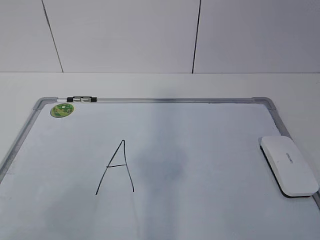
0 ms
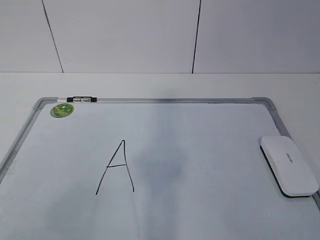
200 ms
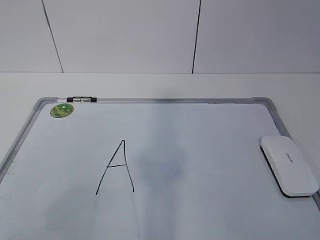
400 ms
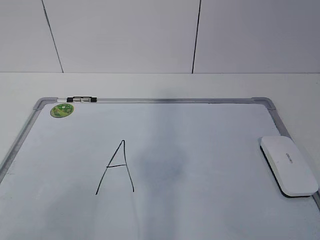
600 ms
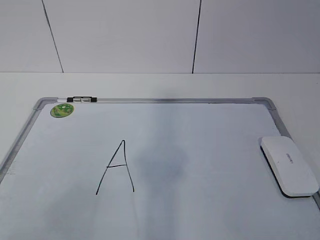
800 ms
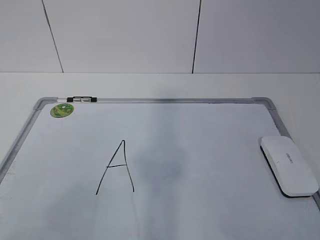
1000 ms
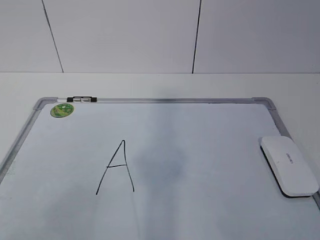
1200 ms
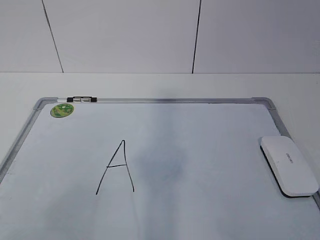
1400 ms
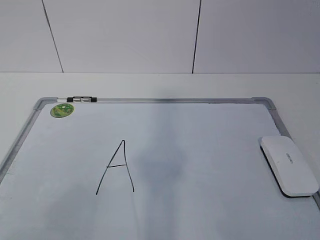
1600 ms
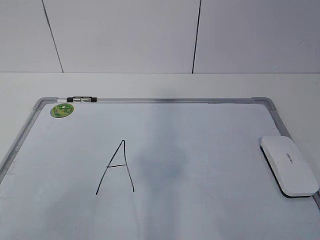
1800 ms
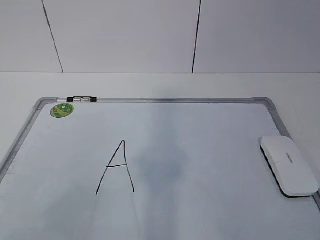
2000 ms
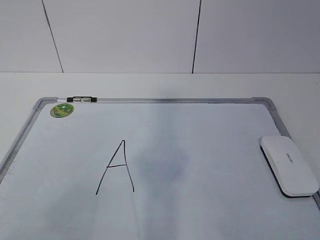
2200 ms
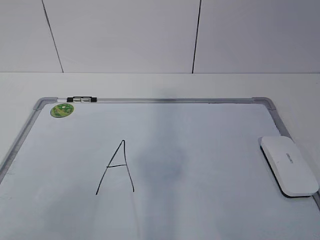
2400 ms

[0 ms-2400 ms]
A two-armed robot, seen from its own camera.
Task of the whole recording: pick up the eraser on the blackboard and erase the letter "a".
1200 ms to 2400 ms: The two grippers keep their place.

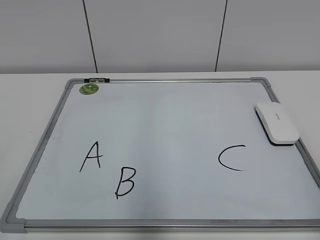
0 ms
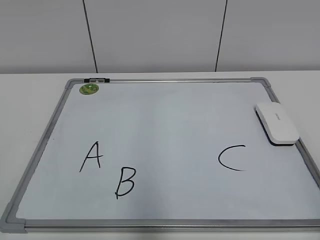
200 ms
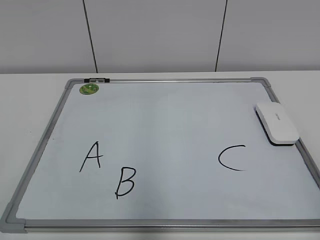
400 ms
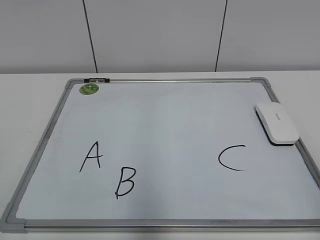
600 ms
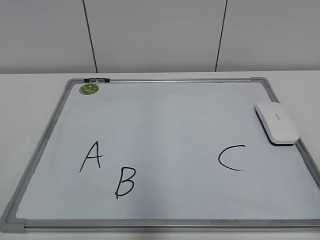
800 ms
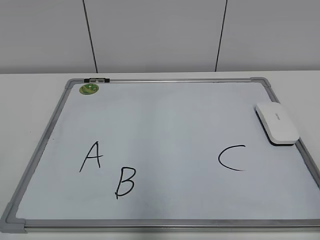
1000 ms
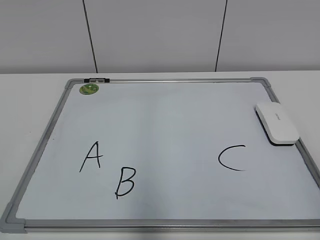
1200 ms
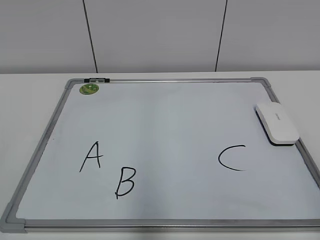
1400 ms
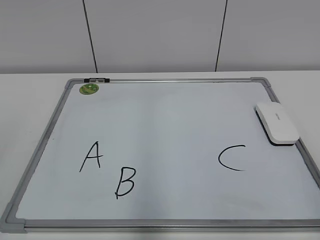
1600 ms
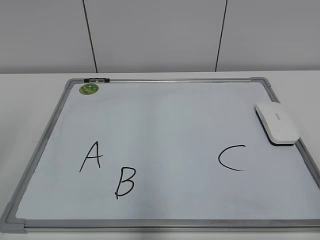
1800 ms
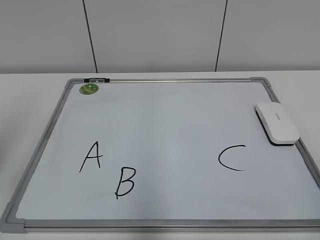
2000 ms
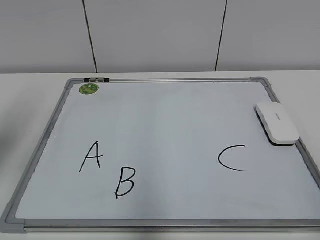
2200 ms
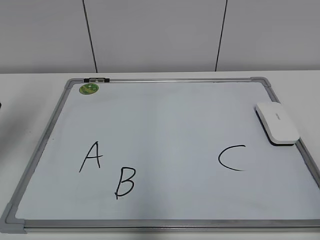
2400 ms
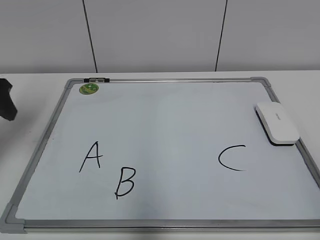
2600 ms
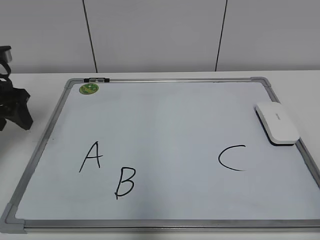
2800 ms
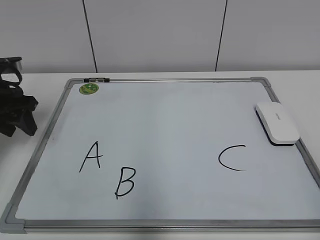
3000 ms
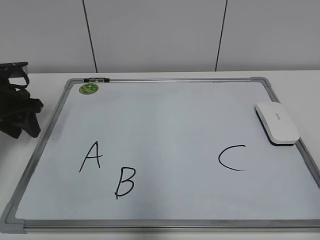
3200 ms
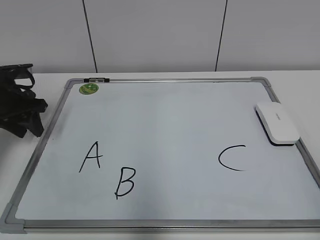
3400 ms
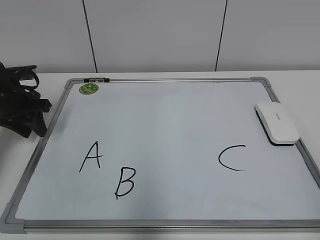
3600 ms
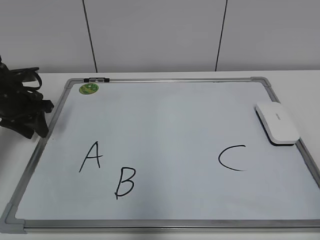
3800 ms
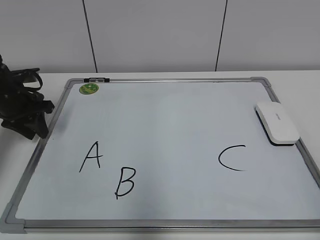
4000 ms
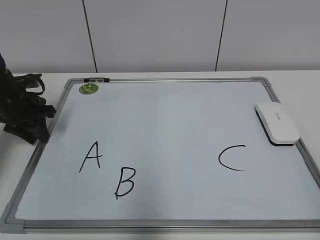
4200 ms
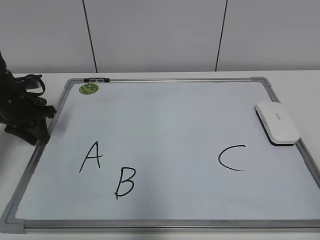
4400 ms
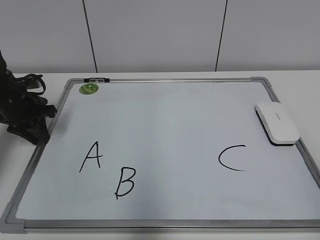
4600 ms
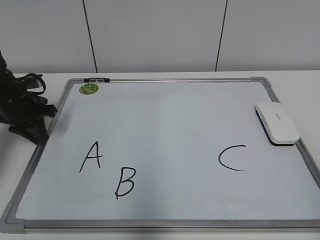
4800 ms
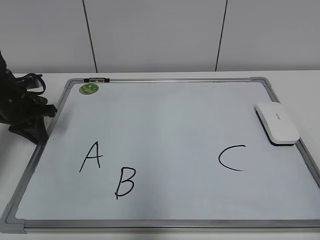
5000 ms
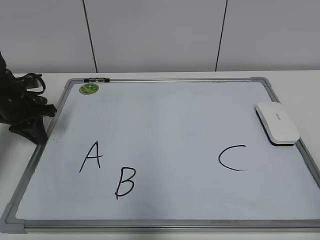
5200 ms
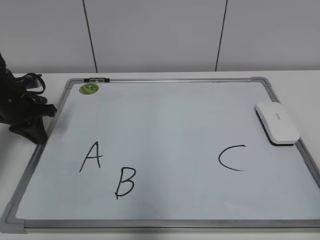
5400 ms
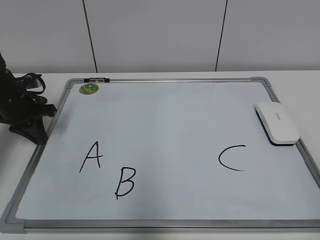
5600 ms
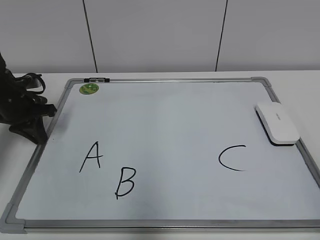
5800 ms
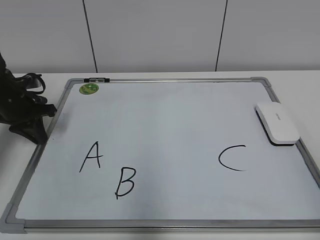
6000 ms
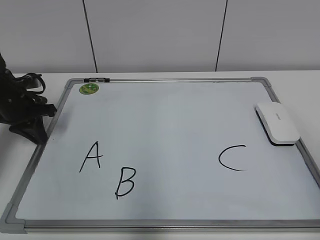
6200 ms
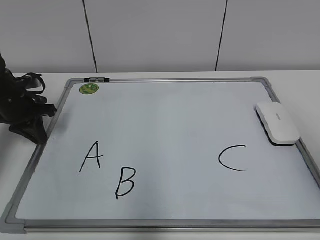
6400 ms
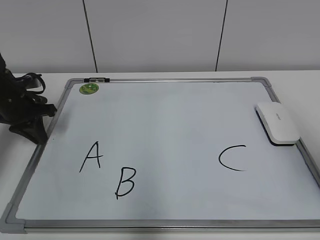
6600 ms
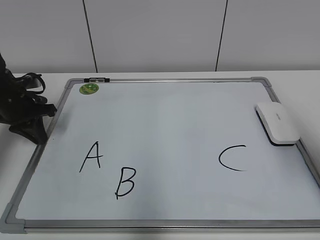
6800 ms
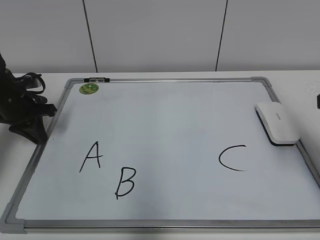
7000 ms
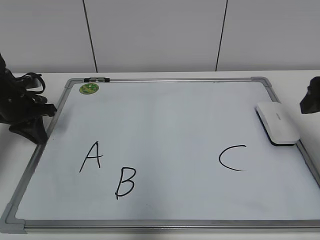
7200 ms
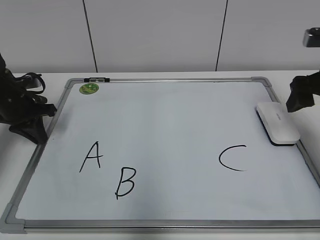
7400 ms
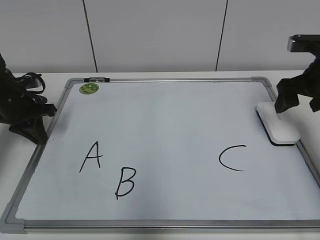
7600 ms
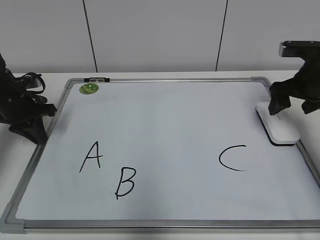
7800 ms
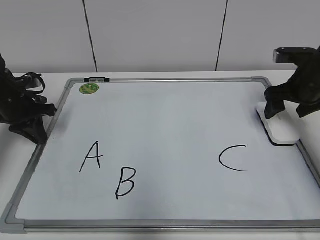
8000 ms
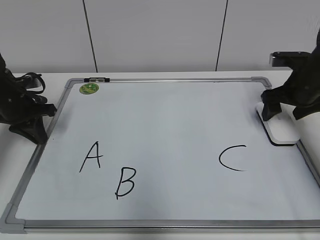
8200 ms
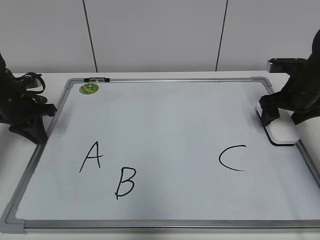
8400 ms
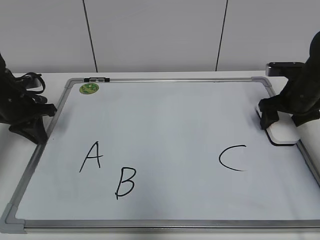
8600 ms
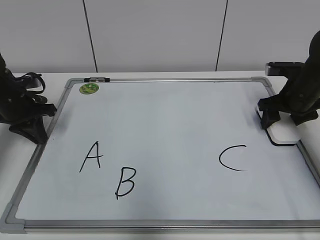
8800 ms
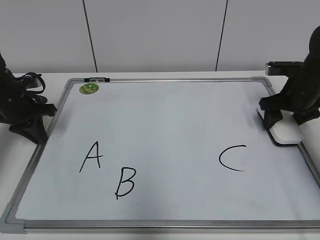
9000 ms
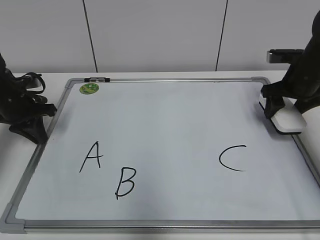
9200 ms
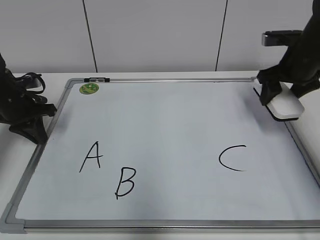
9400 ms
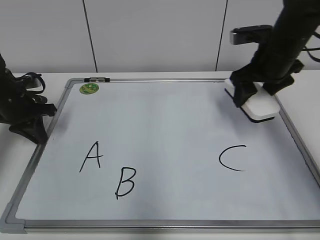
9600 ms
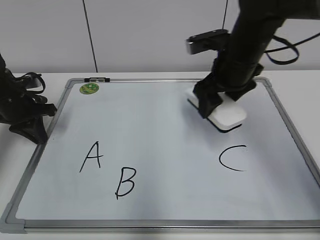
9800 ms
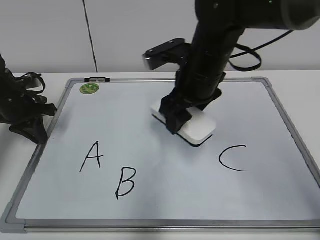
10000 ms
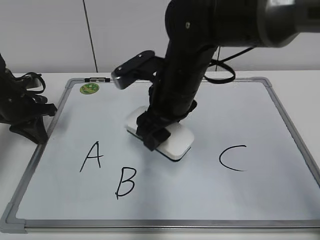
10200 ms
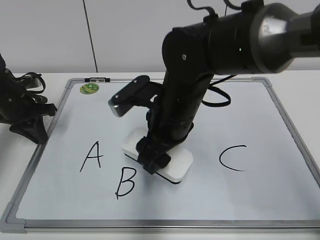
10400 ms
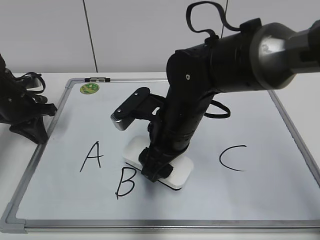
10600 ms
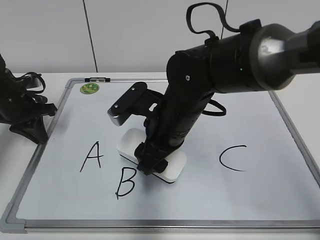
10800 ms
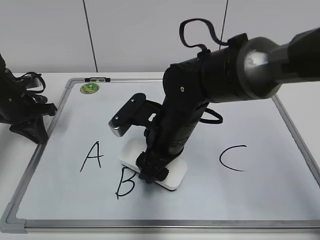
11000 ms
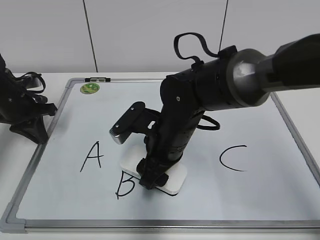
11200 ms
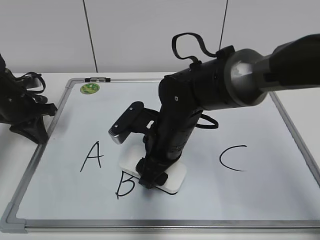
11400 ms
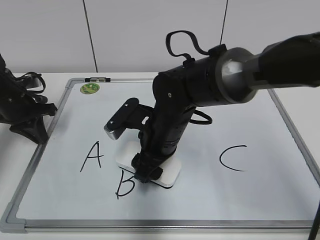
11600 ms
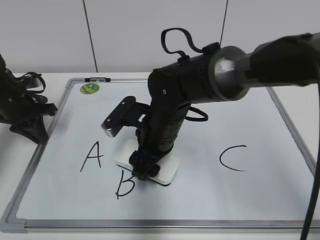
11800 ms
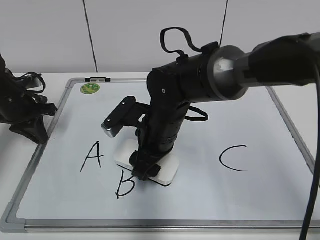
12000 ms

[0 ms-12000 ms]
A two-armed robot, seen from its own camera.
Task of the whole recording: pick up the eraser on the blackboard and erase the letter "B".
Step, 0 ms to 5200 ms: Hold the drawing board steady with your left hand.
Step, 5400 ms to 8800 ms: Grab the eraser with your right hand.
1600 ms to 3000 ms: The left gripper goes approximately 35 cm forward and downward.
3000 ms to 4400 ms: The left gripper moves downward, approximately 5 cm.
6000 ms to 7600 ms: The right gripper shifts about 35 cm forward, and opens its fingers.
7600 ms to 9000 ms: The right gripper heads downward and forward, covering about 10 cm, and closes its fingers.
9000 ms to 10400 ms: The right gripper moves to the left and backward, about 30 cm.
10400 ms to 12000 ms: The right gripper heads downward, covering some 5 cm.

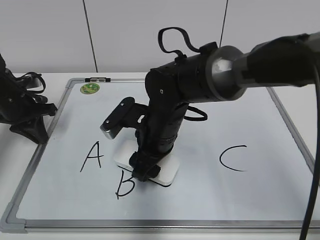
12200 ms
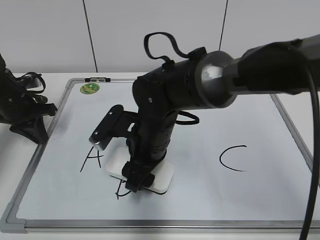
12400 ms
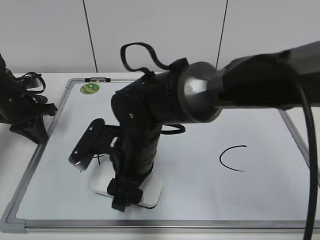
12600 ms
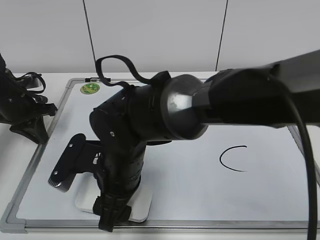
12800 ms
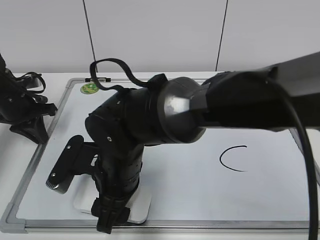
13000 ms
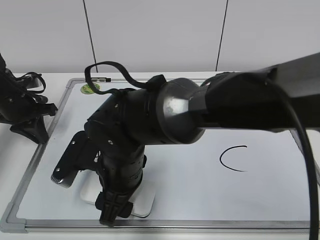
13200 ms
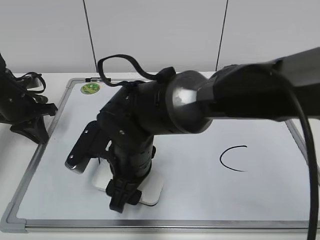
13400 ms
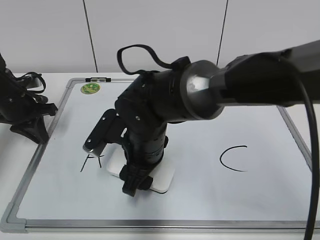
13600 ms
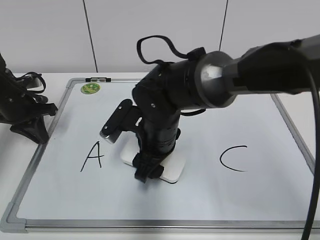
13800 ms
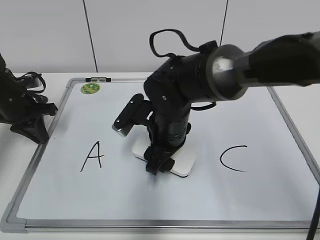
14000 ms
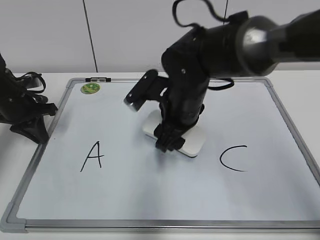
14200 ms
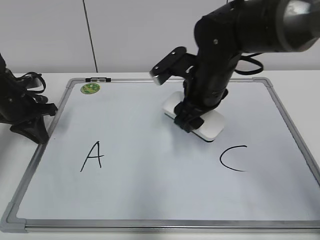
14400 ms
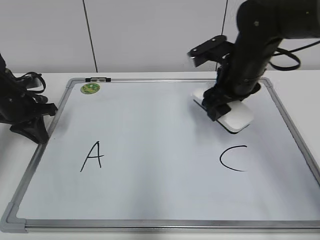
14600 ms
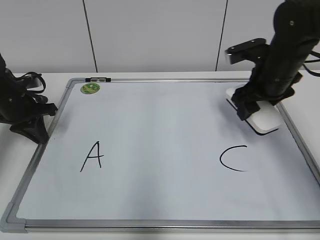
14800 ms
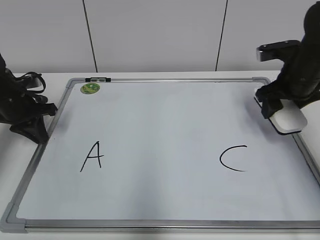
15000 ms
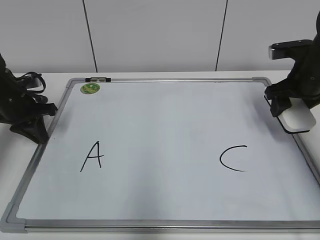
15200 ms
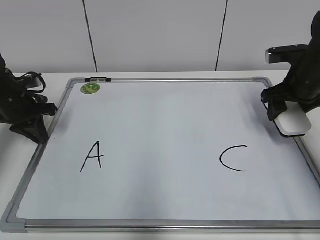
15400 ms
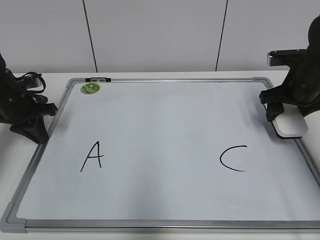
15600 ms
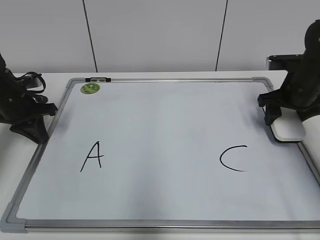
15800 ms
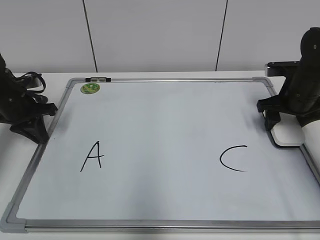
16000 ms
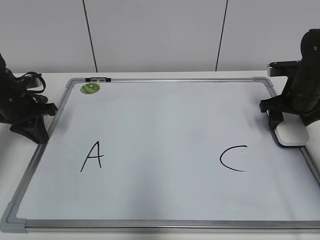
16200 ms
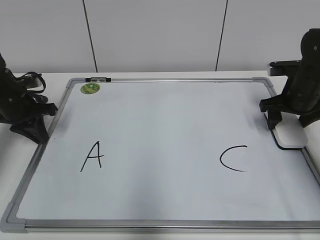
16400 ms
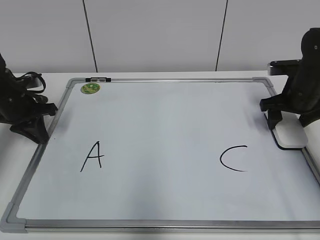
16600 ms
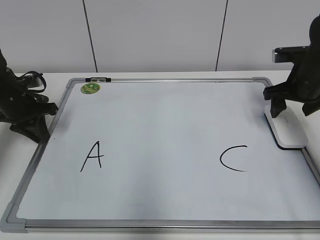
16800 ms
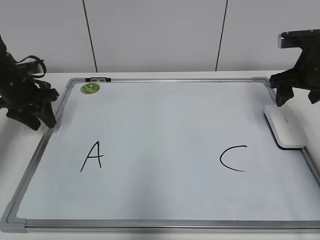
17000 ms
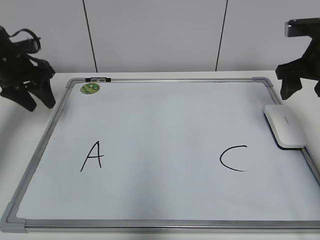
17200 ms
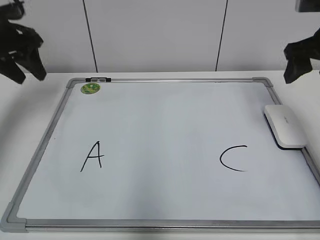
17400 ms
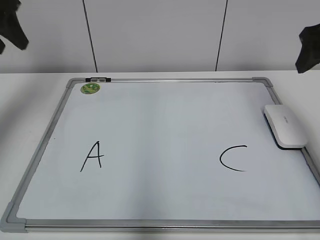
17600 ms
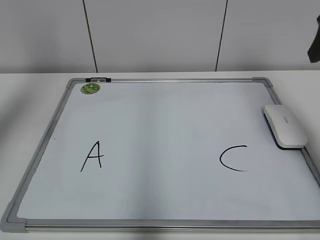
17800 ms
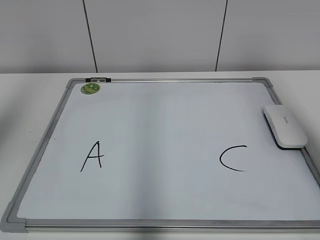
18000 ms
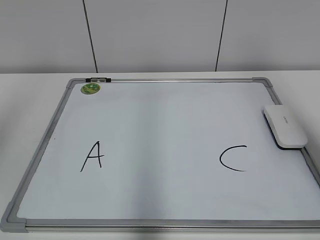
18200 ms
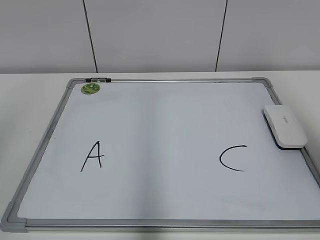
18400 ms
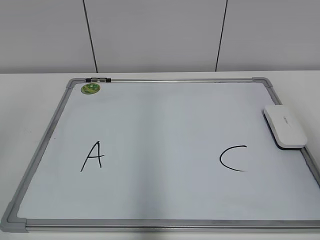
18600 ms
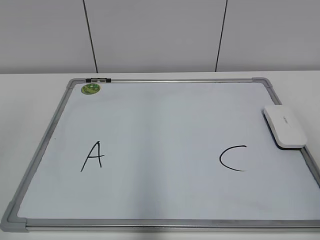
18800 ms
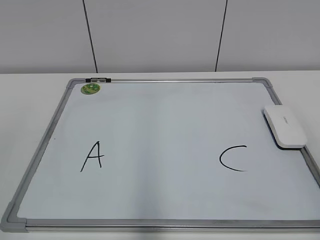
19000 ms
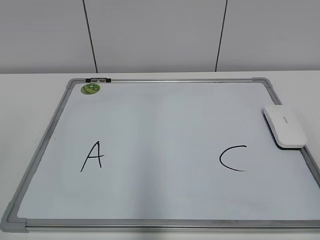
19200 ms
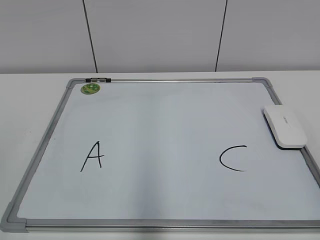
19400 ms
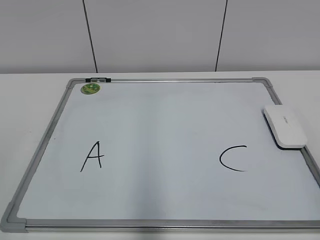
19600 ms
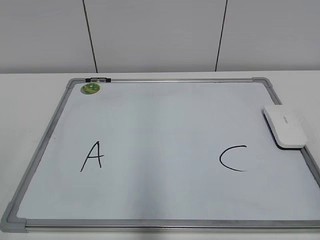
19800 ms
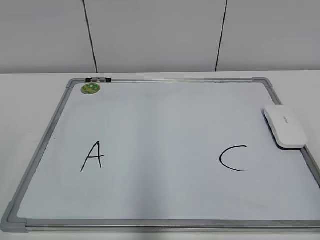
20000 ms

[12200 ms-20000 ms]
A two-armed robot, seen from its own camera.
Task of the whole recording: pick up the eraser on the blackboard and erase the letter "B".
Step, 14000 ms to 16400 ms: Put down the eraser with your right hand.
13800 ms to 15400 ms: The right gripper goes approximately 25 cm to the right.
15400 ms to 16800 ms: The right gripper opens.
16800 ms to 18400 ms: The right gripper moves upward and backward, about 35 cm, while the left gripper goes about 40 cm backward and upward, and opens.
18400 ms to 20000 ms: The right gripper moves downward and backward, some 25 cm.
